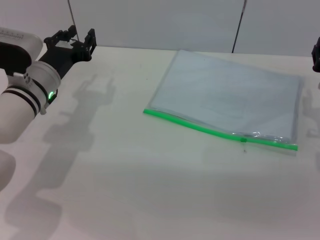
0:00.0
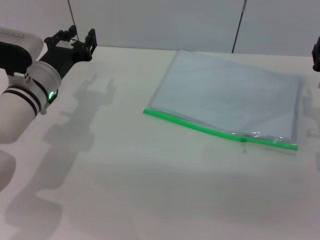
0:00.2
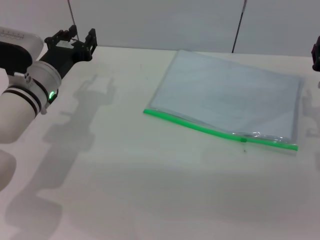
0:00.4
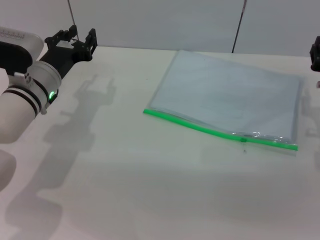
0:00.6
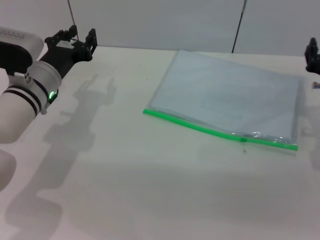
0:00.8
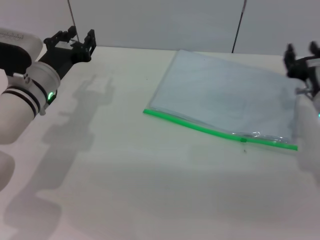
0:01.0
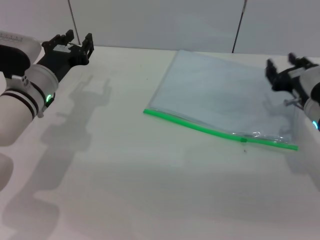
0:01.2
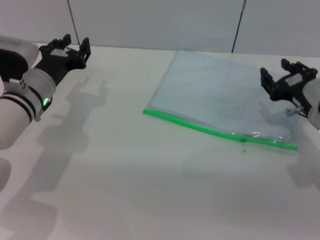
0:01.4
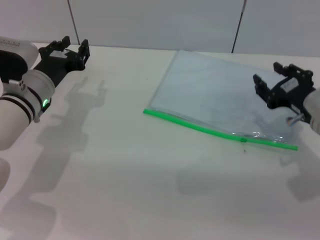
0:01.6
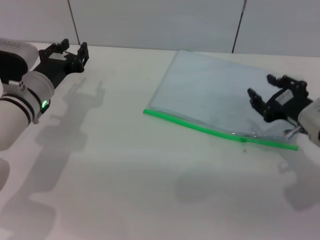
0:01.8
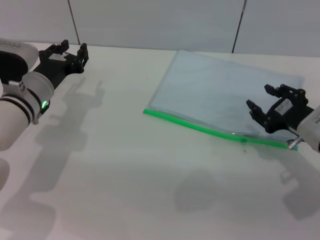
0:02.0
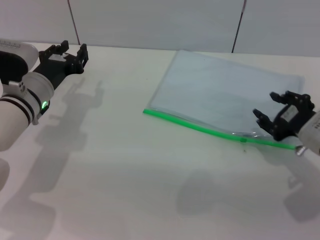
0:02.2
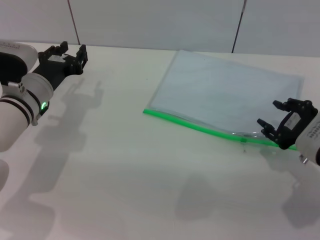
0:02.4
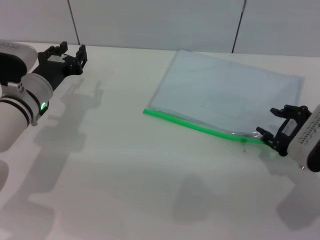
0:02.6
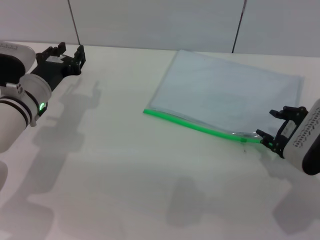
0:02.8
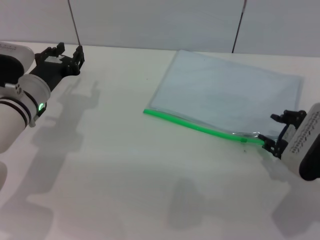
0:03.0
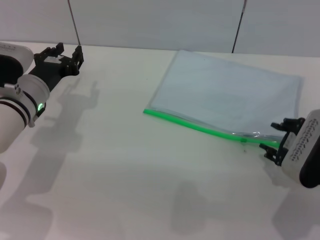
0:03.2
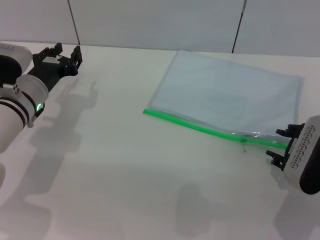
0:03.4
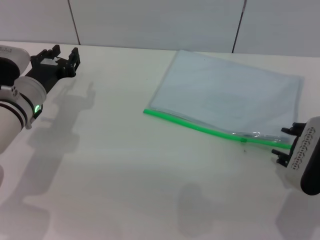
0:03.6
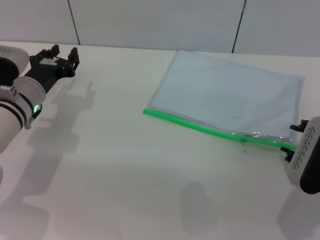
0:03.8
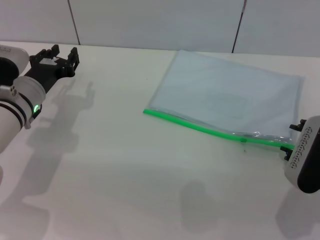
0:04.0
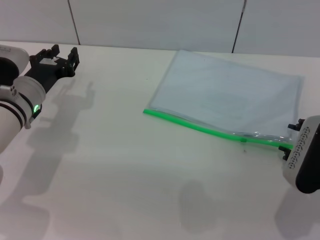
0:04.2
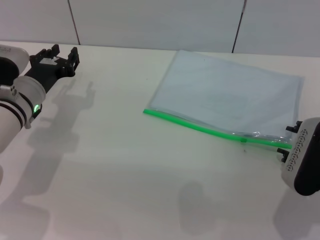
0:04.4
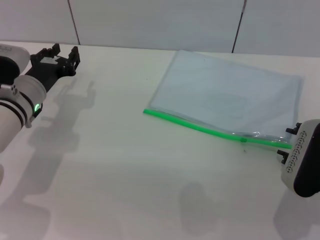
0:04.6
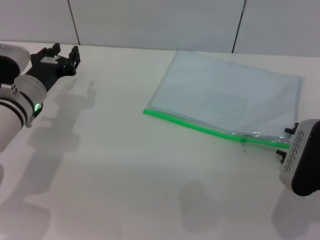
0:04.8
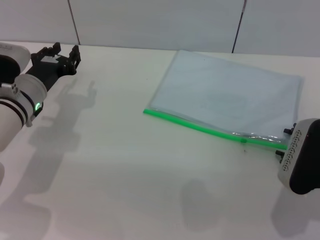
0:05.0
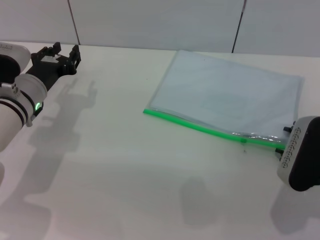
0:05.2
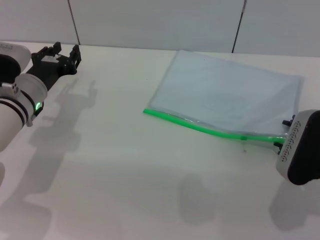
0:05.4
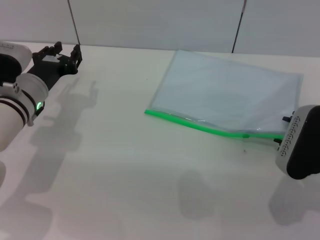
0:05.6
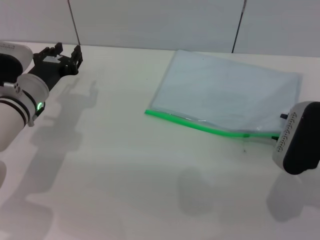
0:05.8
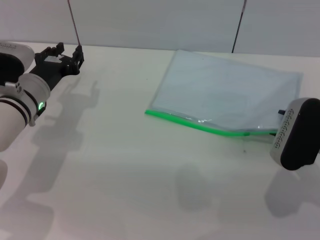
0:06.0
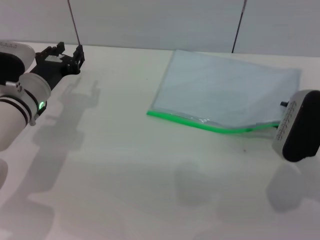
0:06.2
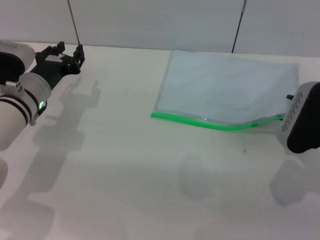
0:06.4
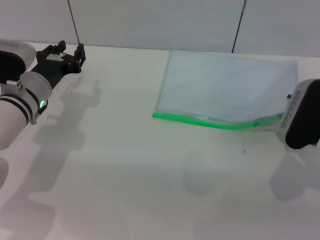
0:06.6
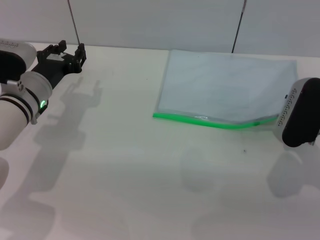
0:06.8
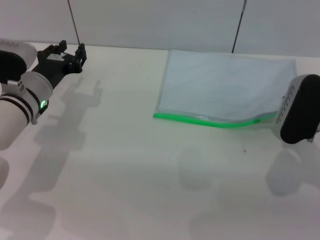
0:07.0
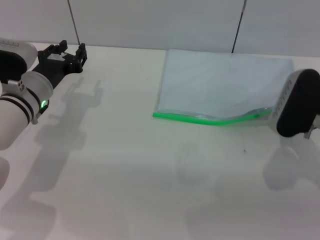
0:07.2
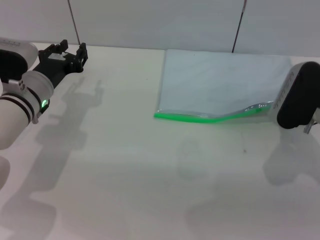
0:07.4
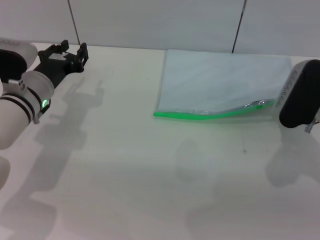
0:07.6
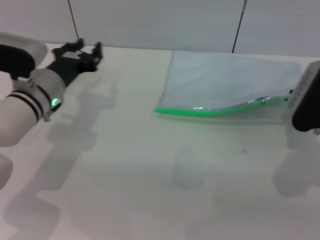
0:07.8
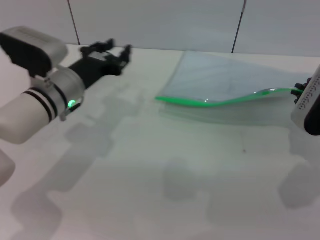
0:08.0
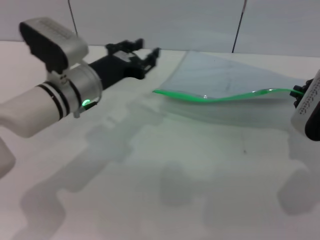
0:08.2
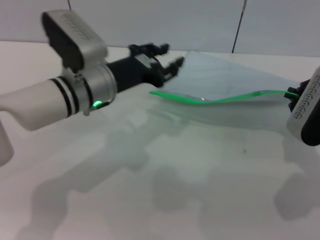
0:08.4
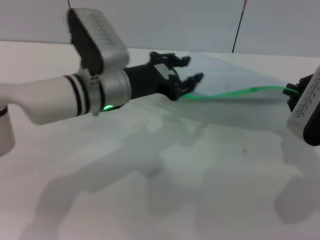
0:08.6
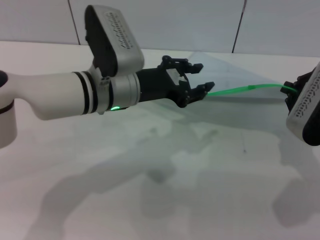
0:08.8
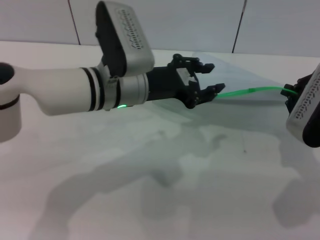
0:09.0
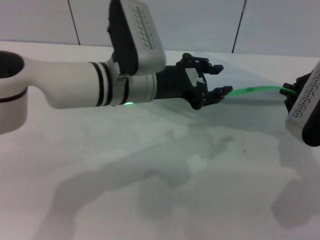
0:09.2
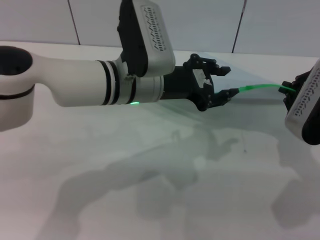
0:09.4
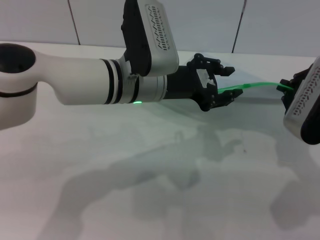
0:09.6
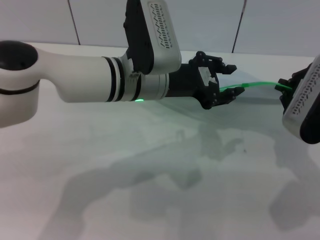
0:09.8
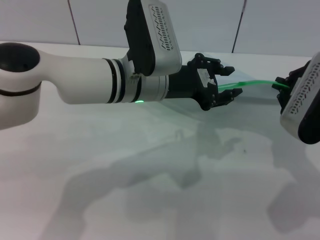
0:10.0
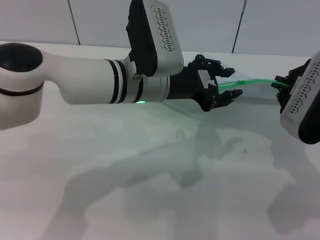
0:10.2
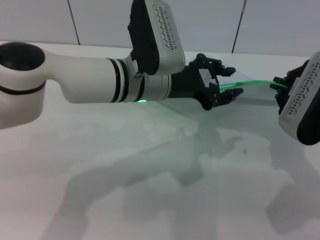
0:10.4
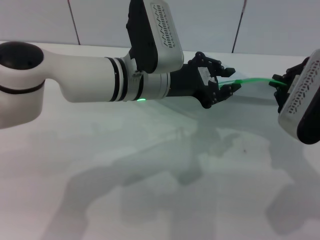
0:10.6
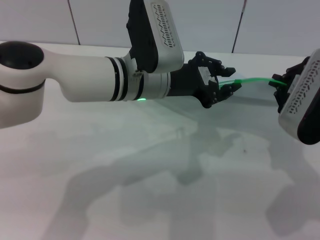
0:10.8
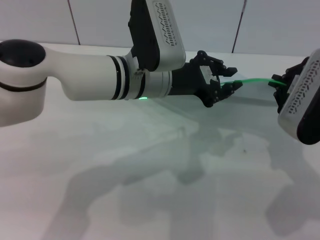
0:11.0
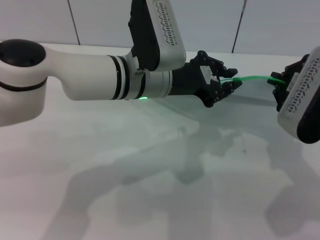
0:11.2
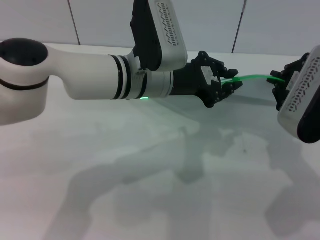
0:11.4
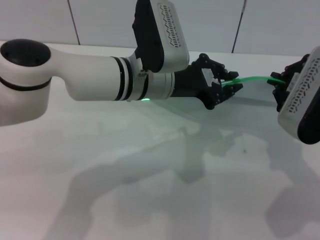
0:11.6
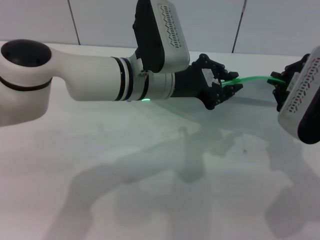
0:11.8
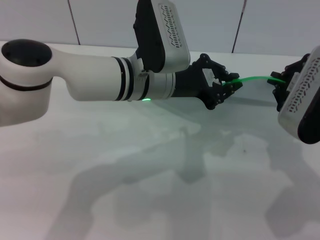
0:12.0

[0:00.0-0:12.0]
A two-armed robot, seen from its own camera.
Step, 0:00.0 to 0:08.6: Pick up the transparent plastic bag with the right gripper.
0:01.6 to 0:03.0: The right gripper ends up roughly 5 cm from where it was.
0:03.0 to 0:06.0: The grippers make only small movements.
0:06.0 to 0:07.6: The right gripper closes.
0:07.6 to 0:09.0: The right gripper heads backward and upward, covering roughly 10 cm. Meanwhile the left gripper heads to the right and upward, covering some 15 cm.
0:10.4 to 0:12.0: The left gripper closes its fingers.

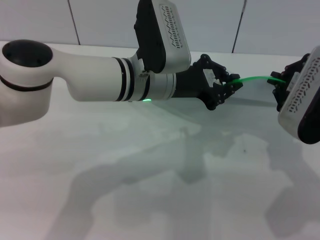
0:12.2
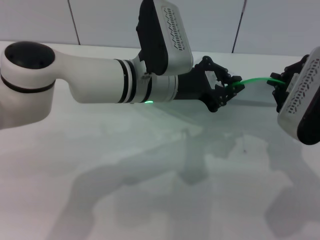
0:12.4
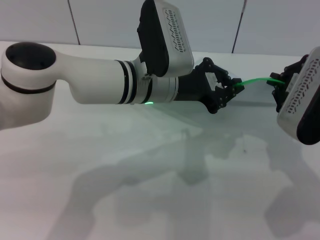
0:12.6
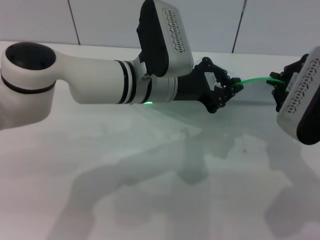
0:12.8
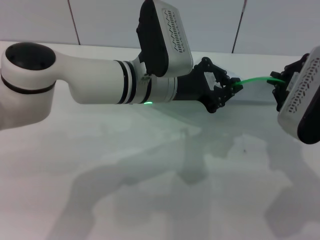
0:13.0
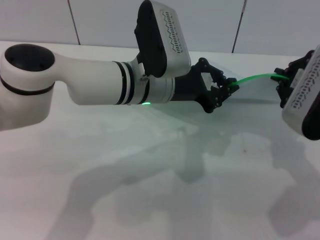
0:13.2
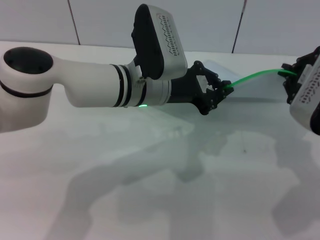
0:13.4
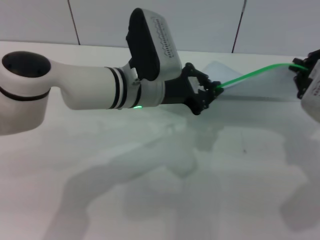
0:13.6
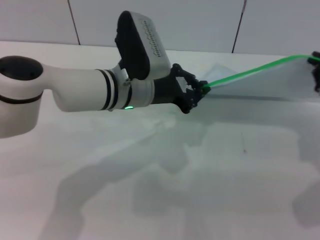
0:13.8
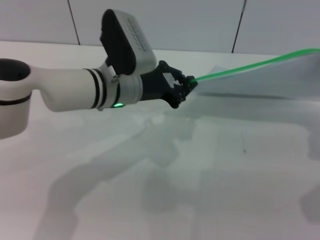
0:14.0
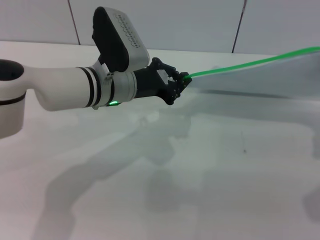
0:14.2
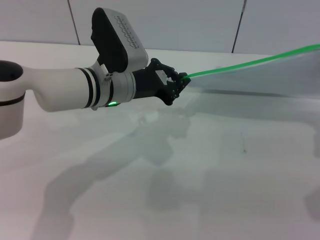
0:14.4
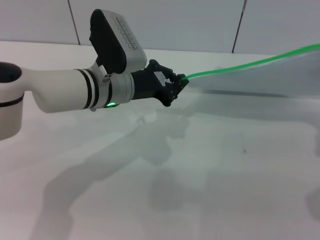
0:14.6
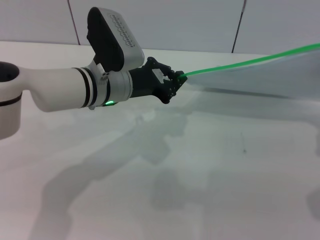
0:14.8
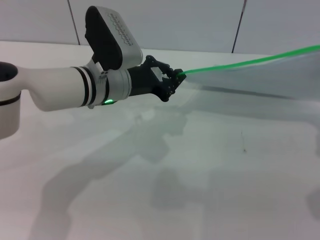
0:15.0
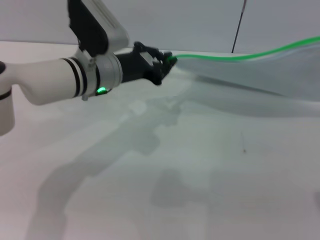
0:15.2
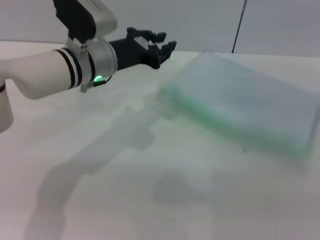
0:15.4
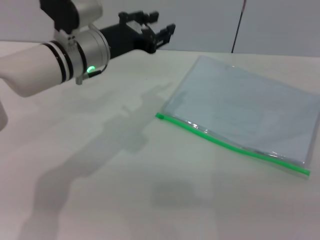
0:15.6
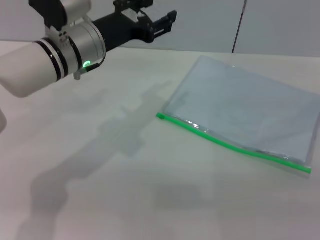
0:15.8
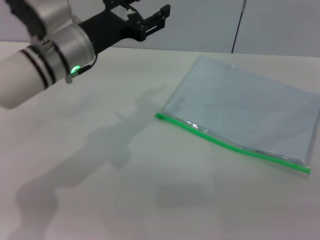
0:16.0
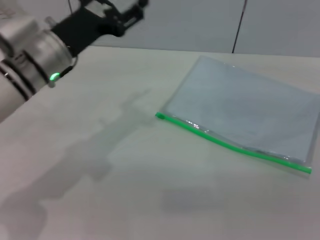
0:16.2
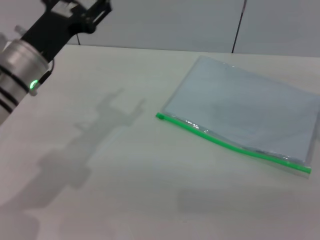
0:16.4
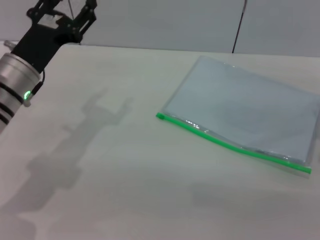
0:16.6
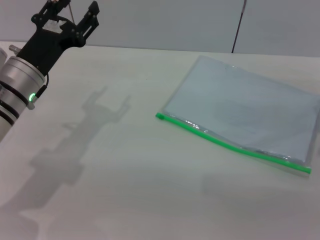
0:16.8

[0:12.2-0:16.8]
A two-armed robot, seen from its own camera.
Step, 0:12.2 to 0:15.2: Pulling up the zipper on the transparent plastic bag with the left gripper to close it.
Step, 0:15.4 to 0:15.6: Place the transparent plastic bag.
0:15.2 to 0:16.8: The left gripper moves to the left and backward, roughly 10 cm, and opens; the right gripper goes some 15 cm downward, and opens its fingers.
